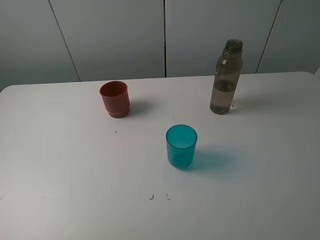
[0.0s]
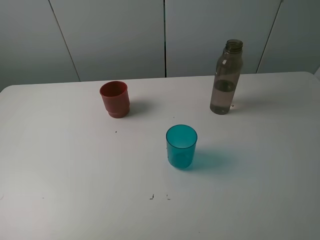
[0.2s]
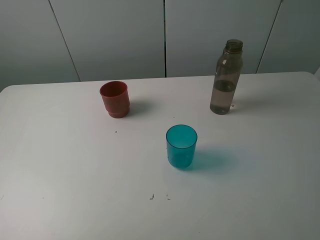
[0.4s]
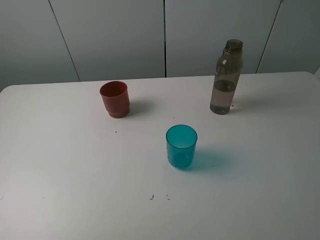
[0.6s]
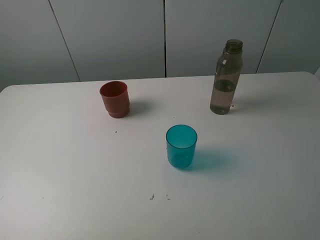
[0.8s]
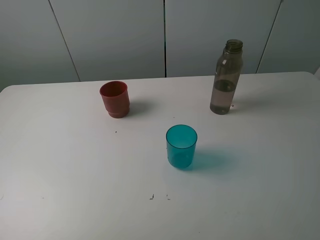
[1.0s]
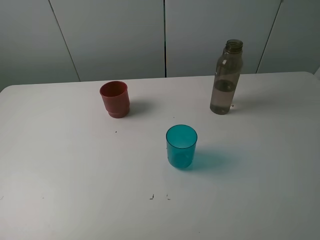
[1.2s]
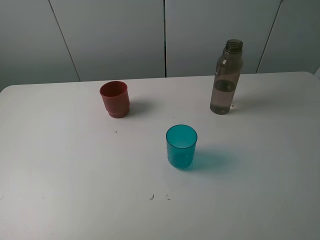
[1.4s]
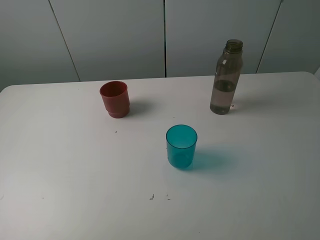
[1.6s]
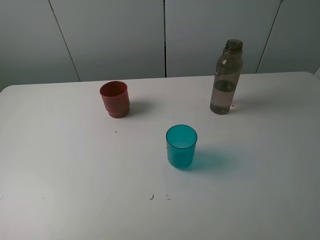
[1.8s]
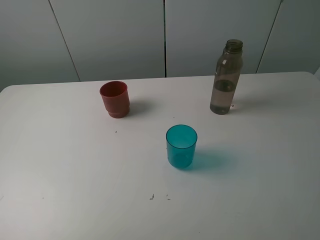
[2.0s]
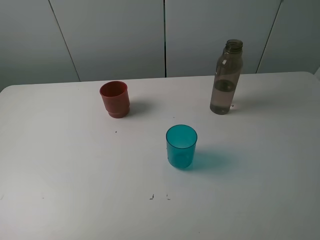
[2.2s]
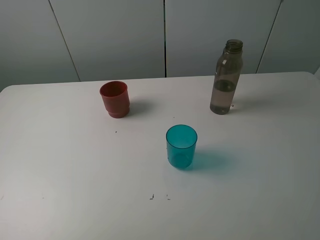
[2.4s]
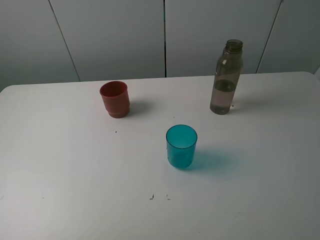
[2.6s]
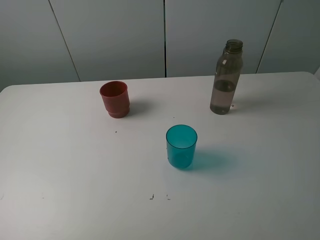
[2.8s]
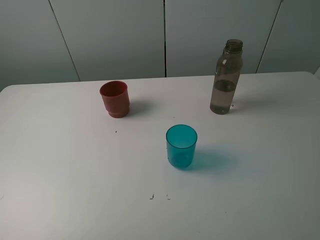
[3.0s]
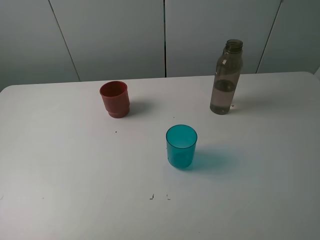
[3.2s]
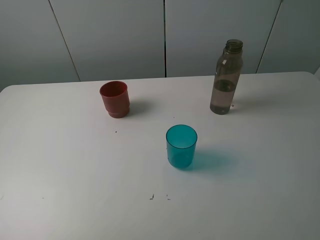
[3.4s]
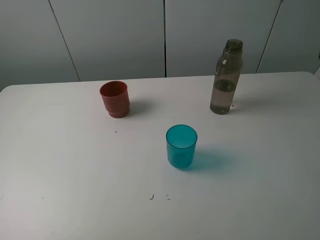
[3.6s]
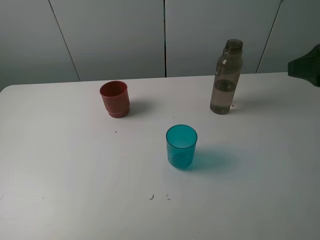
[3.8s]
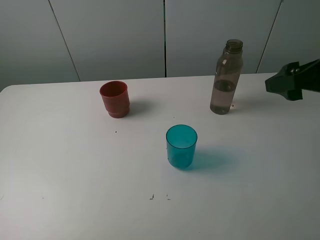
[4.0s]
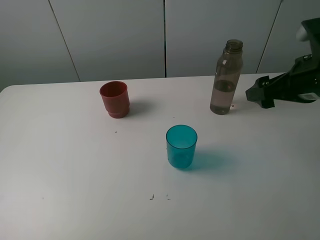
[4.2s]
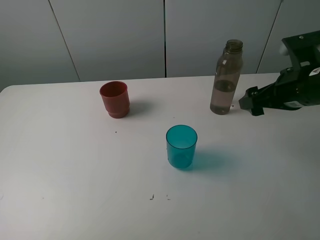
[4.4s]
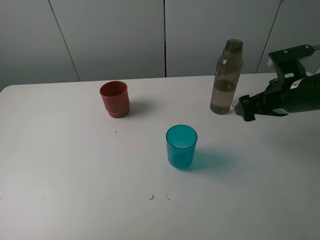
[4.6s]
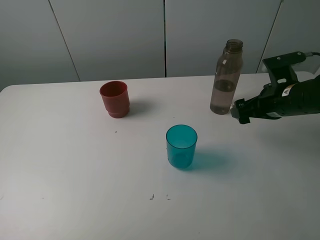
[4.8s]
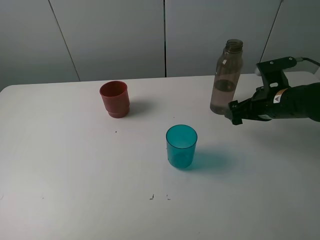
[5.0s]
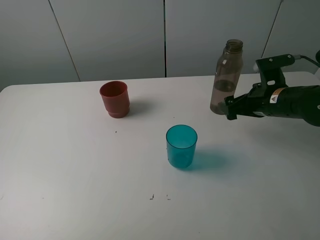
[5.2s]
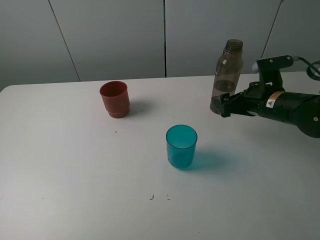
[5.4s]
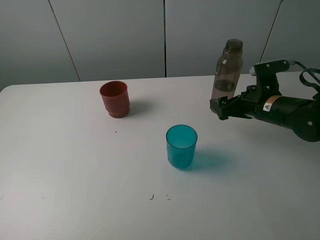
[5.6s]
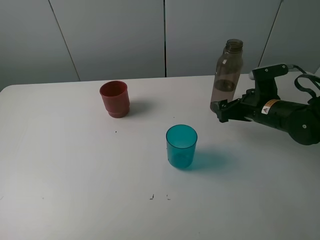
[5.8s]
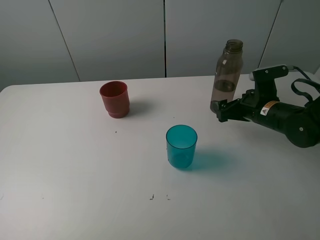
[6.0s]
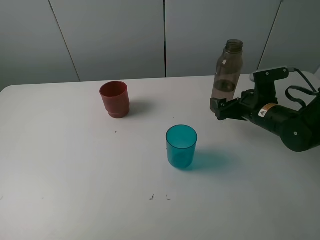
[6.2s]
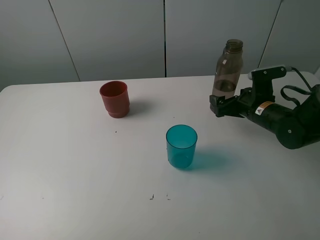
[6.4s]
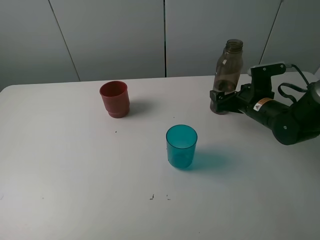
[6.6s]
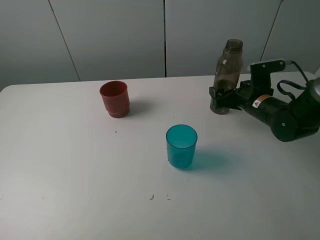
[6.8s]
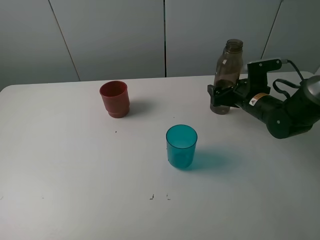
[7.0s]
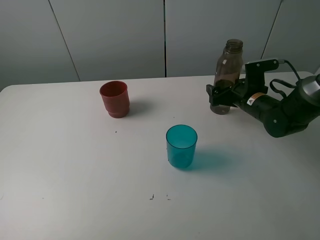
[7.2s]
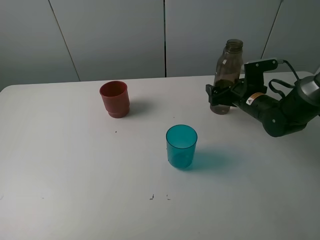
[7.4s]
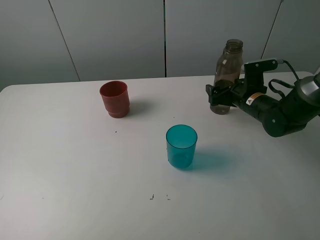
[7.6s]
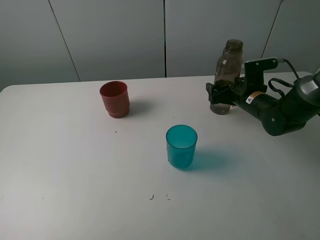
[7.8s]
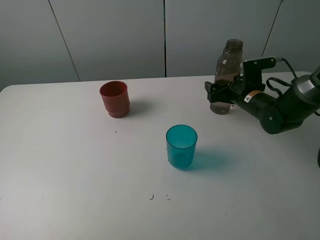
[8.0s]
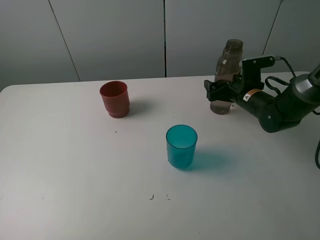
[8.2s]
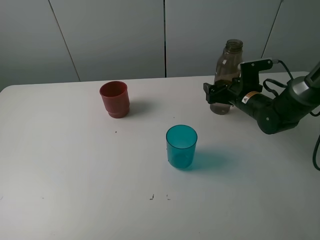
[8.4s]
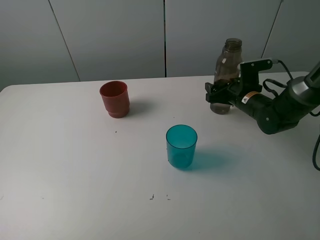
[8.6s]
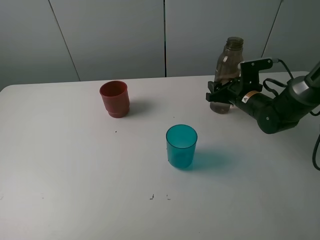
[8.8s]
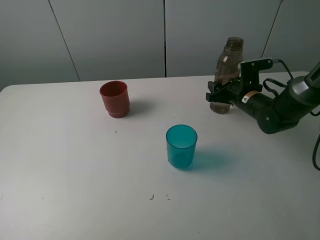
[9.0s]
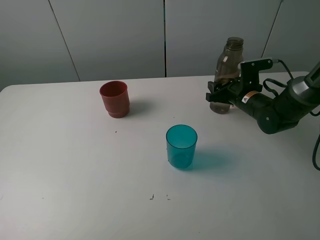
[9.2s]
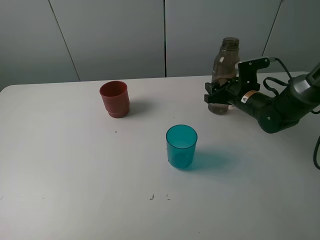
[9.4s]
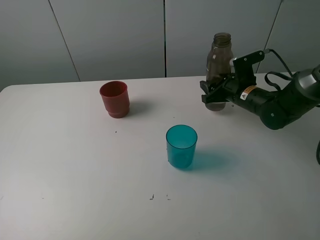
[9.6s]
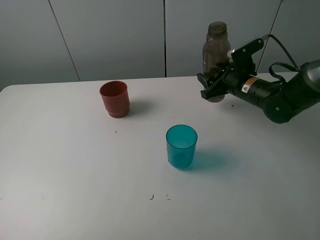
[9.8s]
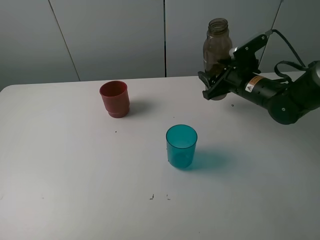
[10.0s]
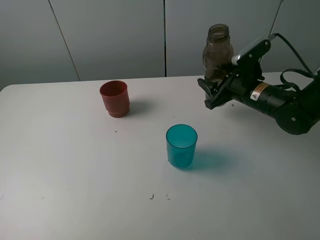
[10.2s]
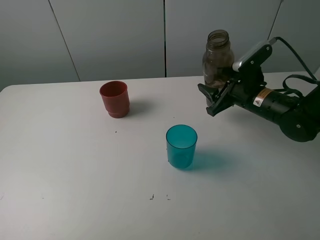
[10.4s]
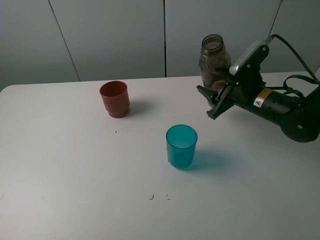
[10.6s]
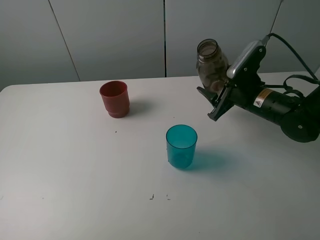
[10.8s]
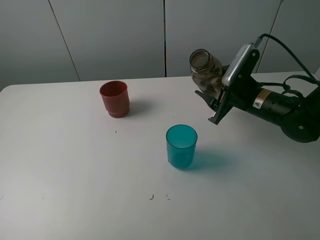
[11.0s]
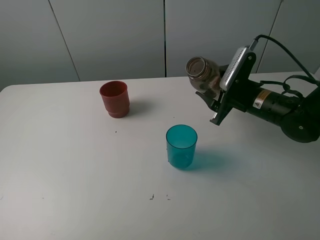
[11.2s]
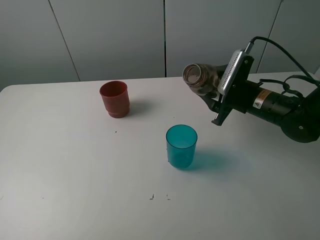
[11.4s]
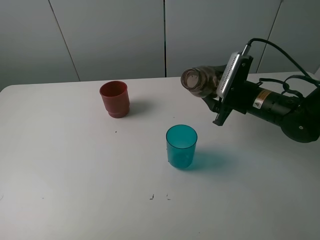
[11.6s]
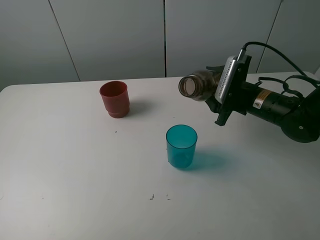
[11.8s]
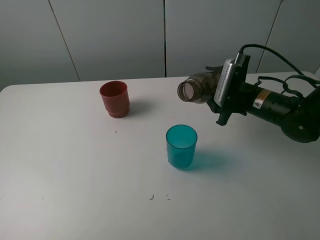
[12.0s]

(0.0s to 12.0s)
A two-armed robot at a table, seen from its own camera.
Task of the whole recording: pick up the bottle and pour water into the cup, then pick up the cup containing water and pour it into another cup.
Step, 0.0s - 8.8s: Grasp the brown bottle with the right gripper.
0.0s - 1.6s: Both grippers stay about where they are.
3.0s - 4.4s: The right gripper goes some 25 cm forward and downward.
4.4s - 6.0s: The right gripper travels downward by roughly 10 cm.
6.0s - 7.6s: The right gripper heads forward, covering some 5 cm.
7.6s - 9.0s: The right gripper closes its fingers.
9.0s - 10.4s: The right gripper moves backward and upward, roughly 10 cm.

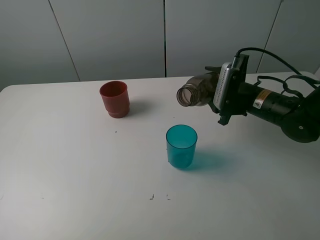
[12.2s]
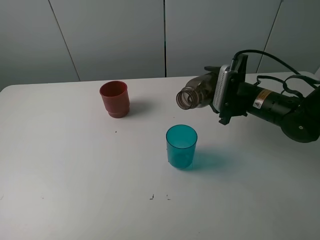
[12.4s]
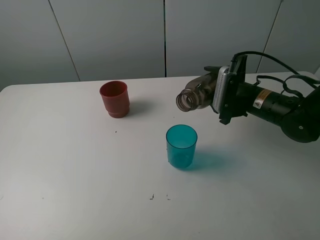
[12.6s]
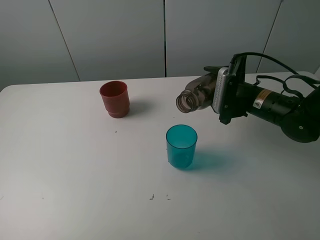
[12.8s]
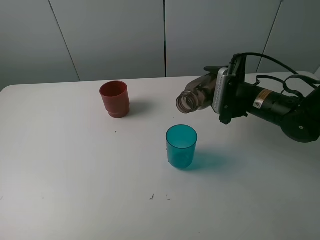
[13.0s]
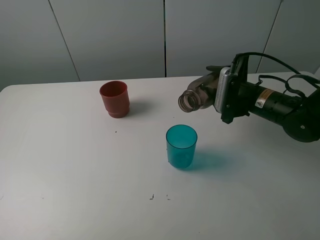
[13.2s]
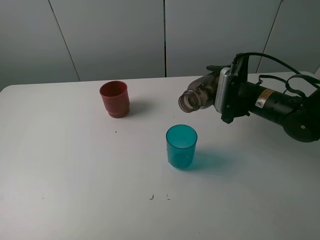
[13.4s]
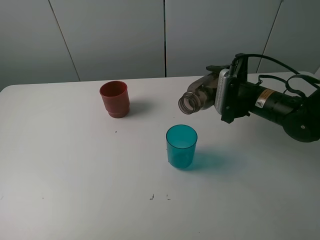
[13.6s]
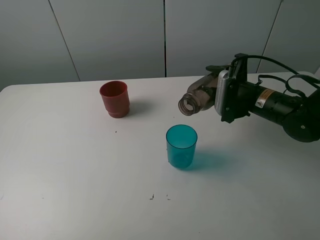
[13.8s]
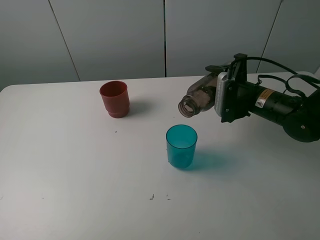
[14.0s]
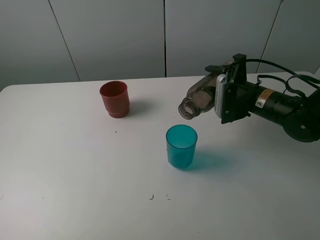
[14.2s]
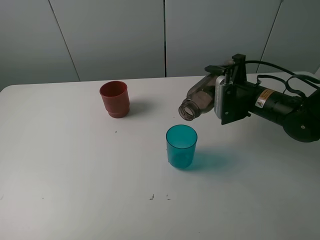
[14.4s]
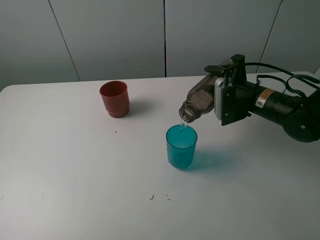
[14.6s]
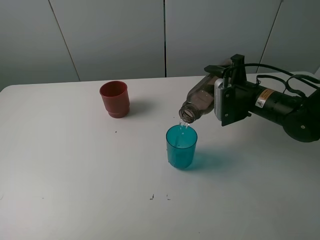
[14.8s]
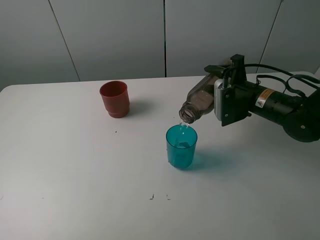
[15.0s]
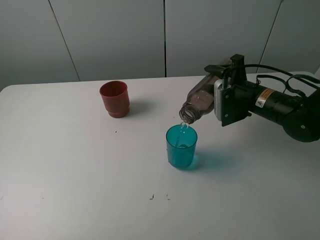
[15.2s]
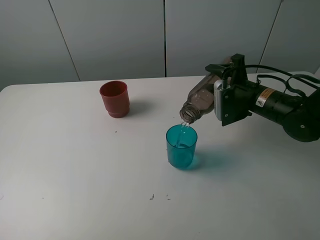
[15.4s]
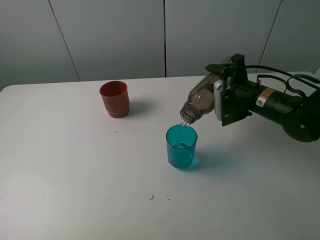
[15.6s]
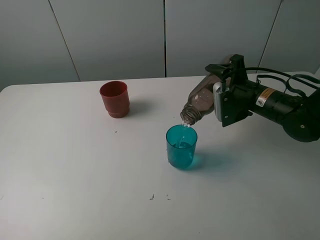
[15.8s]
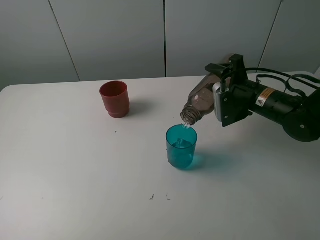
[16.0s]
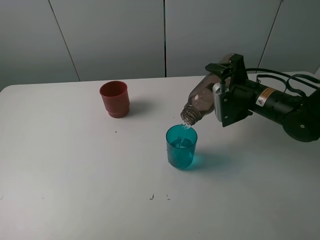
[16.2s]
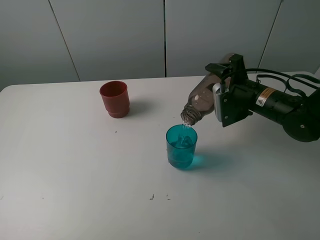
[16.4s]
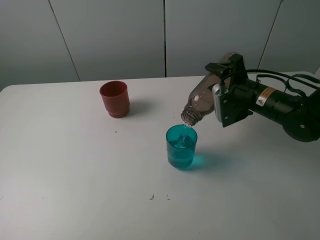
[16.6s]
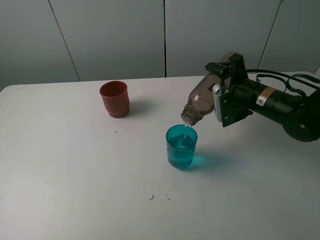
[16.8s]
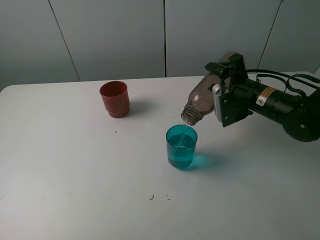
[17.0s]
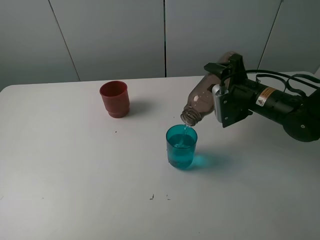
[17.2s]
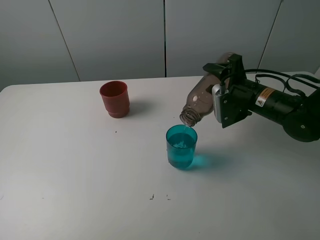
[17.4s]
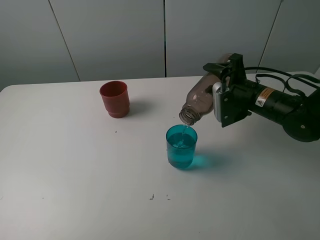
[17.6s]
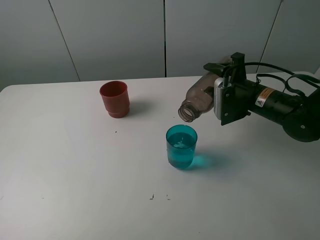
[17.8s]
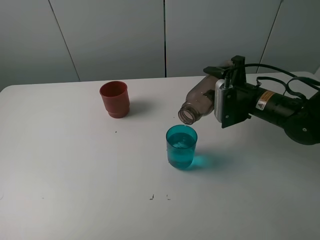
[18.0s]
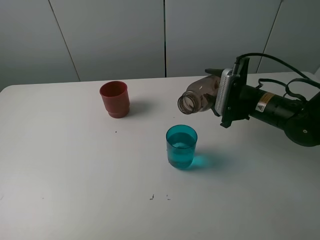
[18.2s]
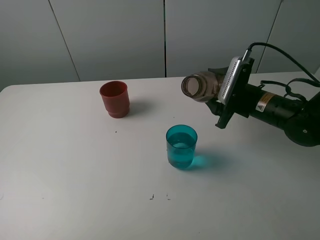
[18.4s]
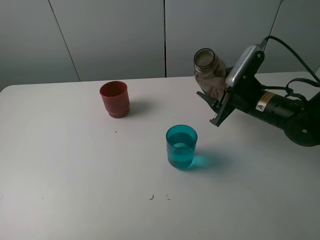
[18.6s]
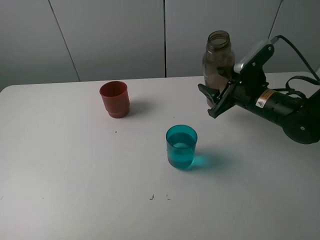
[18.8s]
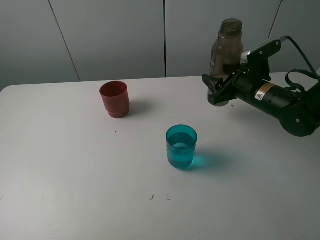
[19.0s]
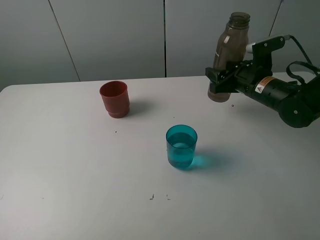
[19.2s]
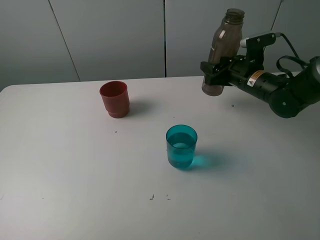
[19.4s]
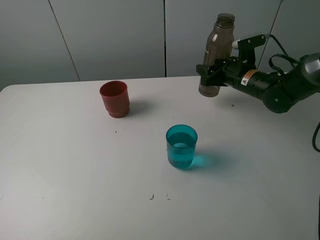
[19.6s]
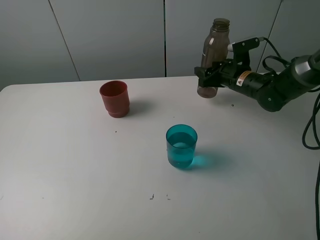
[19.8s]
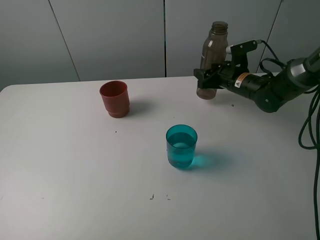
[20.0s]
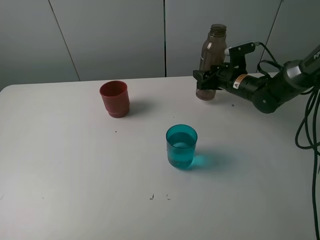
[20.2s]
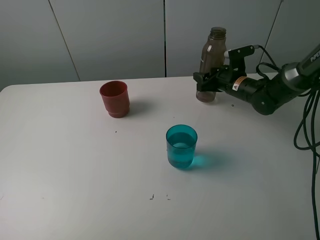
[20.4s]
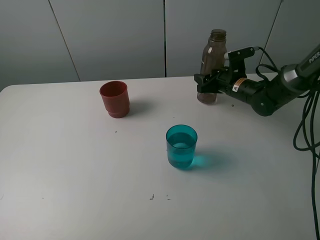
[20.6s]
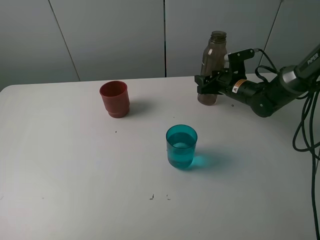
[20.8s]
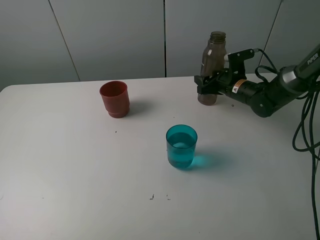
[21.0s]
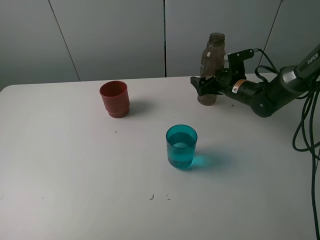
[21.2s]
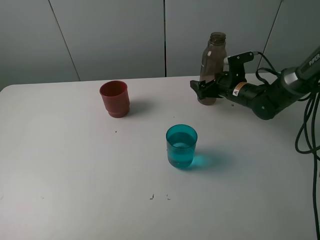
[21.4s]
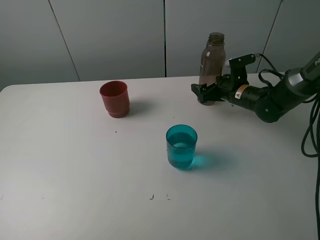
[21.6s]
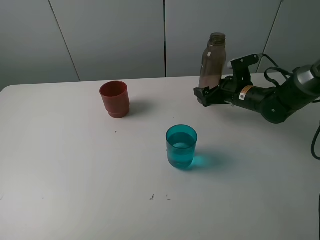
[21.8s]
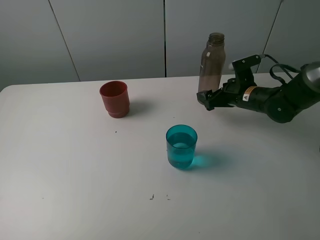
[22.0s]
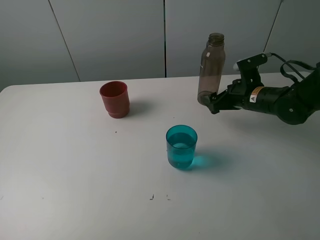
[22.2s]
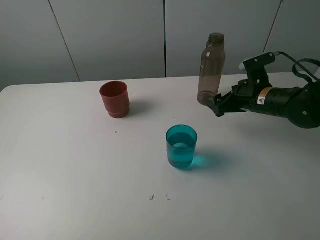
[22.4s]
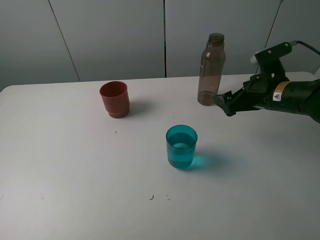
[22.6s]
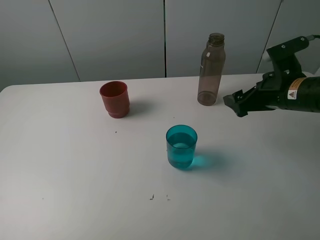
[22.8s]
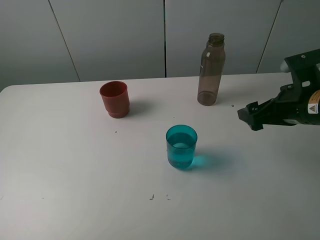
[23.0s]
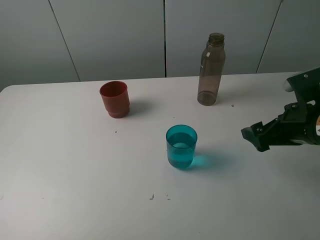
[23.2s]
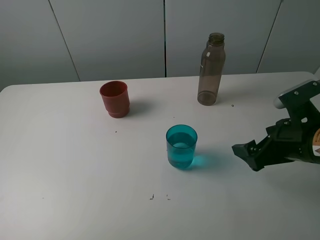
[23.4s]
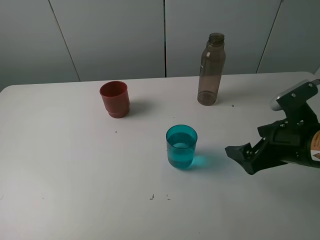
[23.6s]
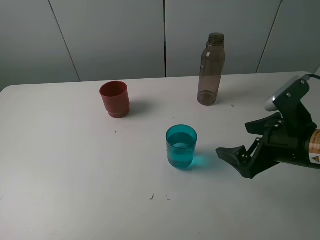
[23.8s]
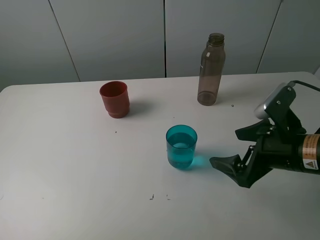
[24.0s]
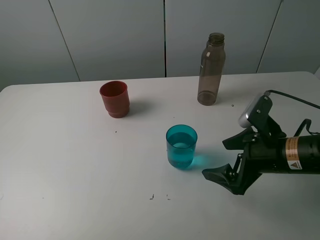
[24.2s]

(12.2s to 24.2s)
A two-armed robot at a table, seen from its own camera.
Task of the whole recording: pick up the bottle and pour water into the cup, then pick up the cup containing water and pour it into another cup.
Step, 12.2s - 17.8s: Pour water from brown bottle to blue cup with the right gripper.
Step, 18.0s - 21.2s: Place the brown bottle with the right gripper.
12.2s - 13.8s: The grippers stay close to where they were, moving slightly.
13.8s - 16.6s: The grippers make only small movements.
18.2s - 19.8s: The right gripper moves forward, about 10 cm.
19.8s - 21.2s: The right gripper opens.
21.2s - 22.6s: The right gripper is displaced backward and upward by roughly 15 cm.
22.6s - 24.2s: The right gripper moves backward, some 10 cm.
